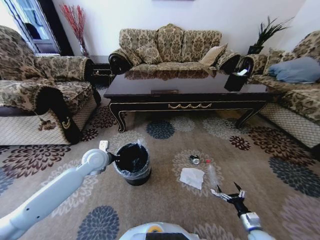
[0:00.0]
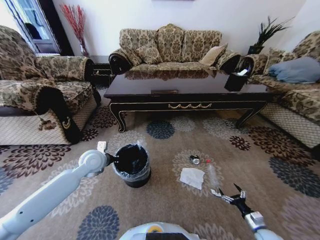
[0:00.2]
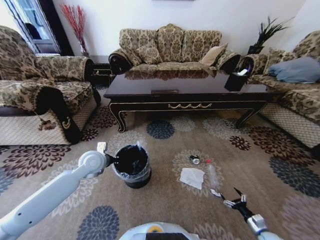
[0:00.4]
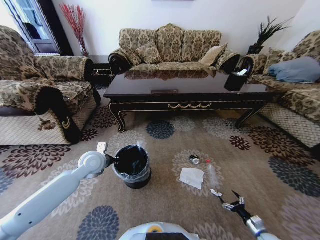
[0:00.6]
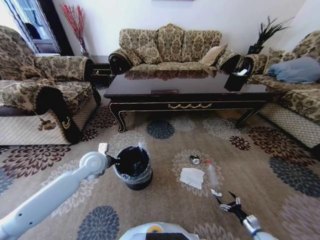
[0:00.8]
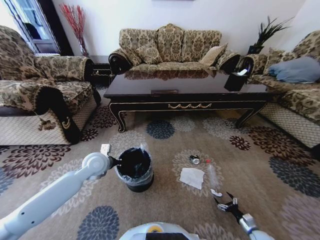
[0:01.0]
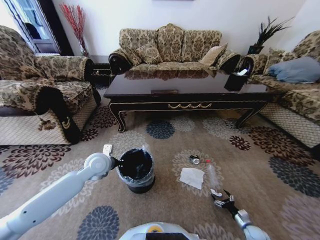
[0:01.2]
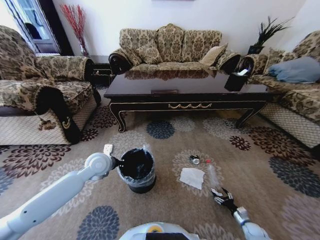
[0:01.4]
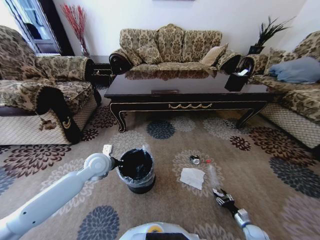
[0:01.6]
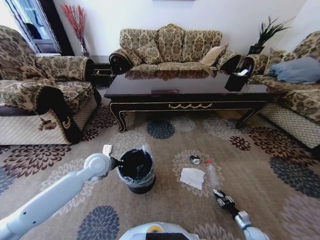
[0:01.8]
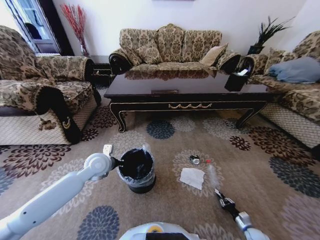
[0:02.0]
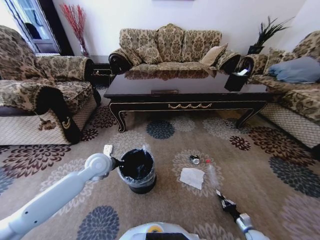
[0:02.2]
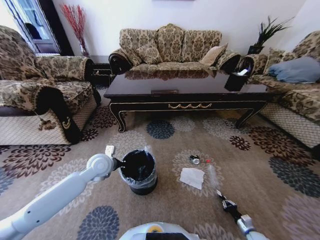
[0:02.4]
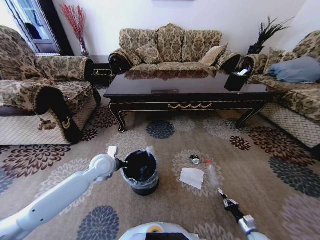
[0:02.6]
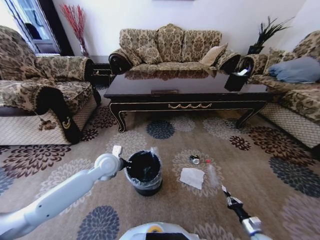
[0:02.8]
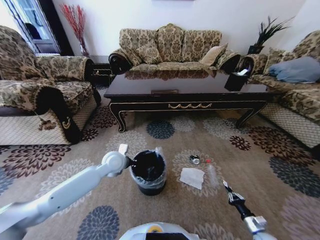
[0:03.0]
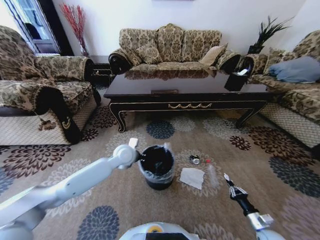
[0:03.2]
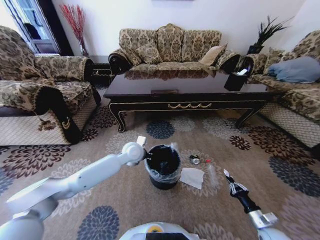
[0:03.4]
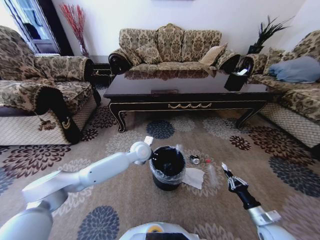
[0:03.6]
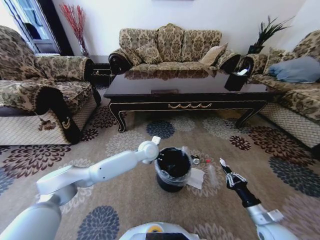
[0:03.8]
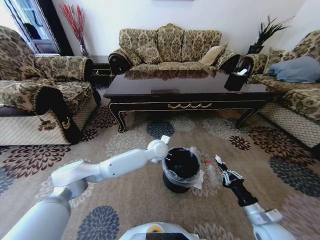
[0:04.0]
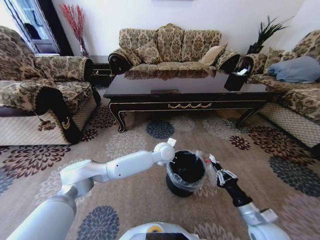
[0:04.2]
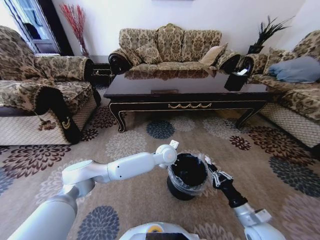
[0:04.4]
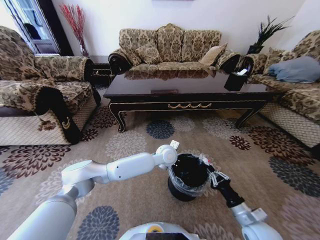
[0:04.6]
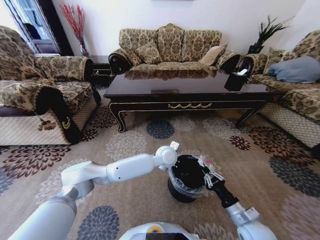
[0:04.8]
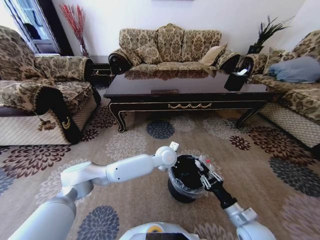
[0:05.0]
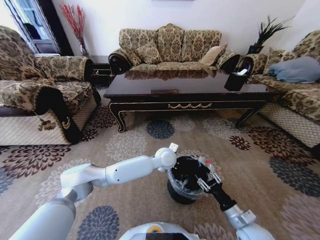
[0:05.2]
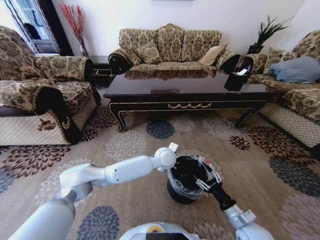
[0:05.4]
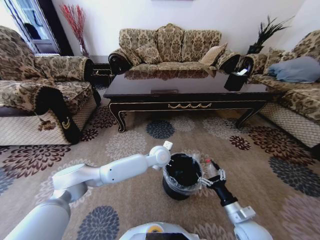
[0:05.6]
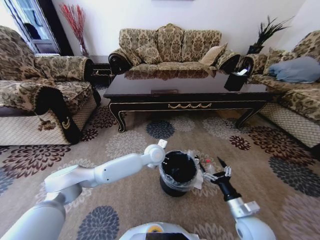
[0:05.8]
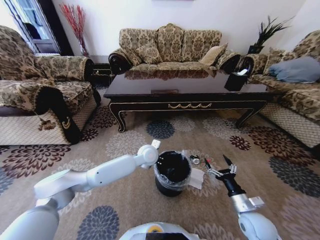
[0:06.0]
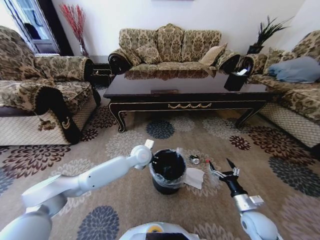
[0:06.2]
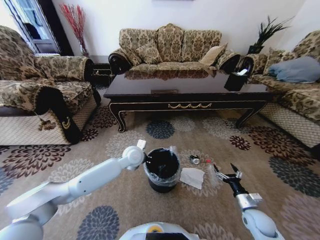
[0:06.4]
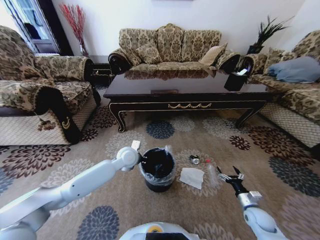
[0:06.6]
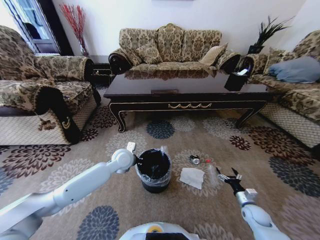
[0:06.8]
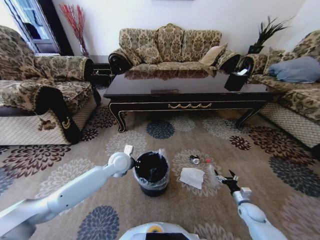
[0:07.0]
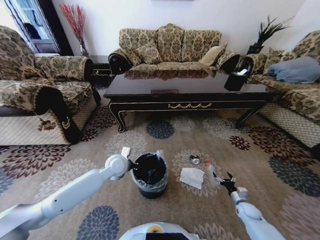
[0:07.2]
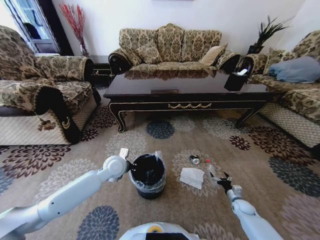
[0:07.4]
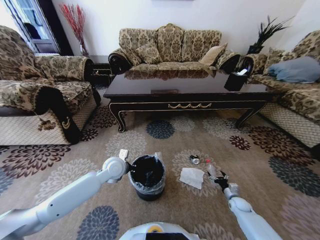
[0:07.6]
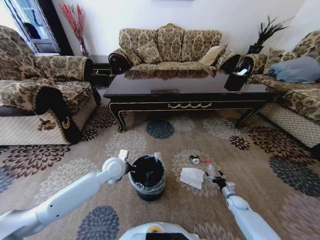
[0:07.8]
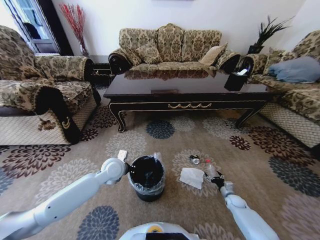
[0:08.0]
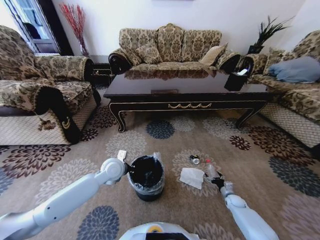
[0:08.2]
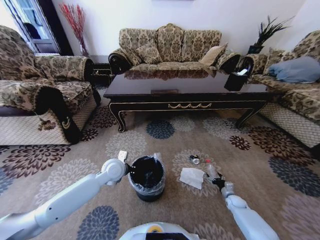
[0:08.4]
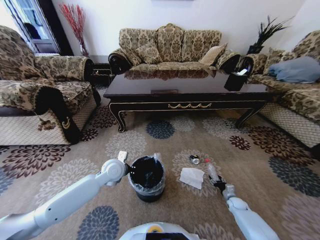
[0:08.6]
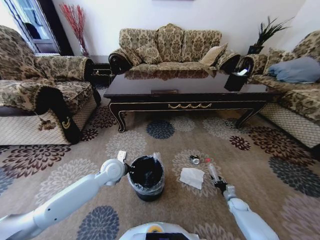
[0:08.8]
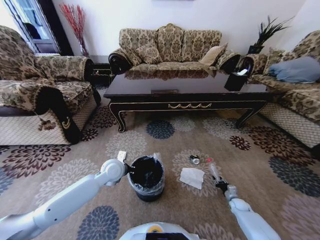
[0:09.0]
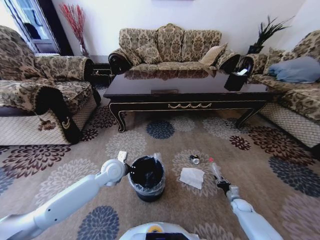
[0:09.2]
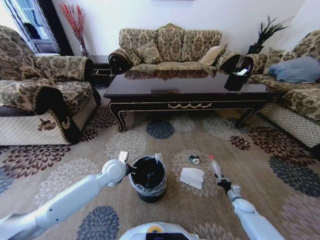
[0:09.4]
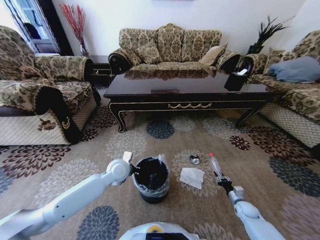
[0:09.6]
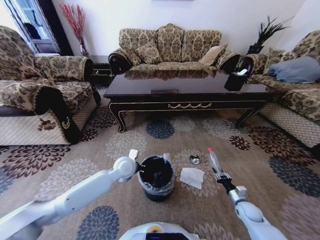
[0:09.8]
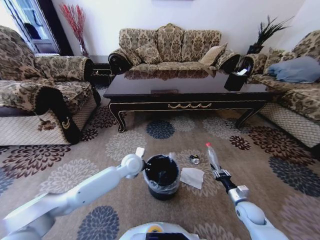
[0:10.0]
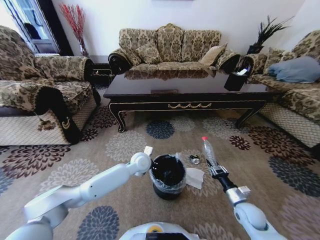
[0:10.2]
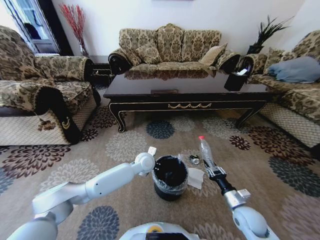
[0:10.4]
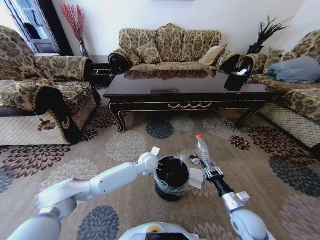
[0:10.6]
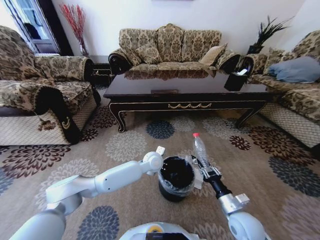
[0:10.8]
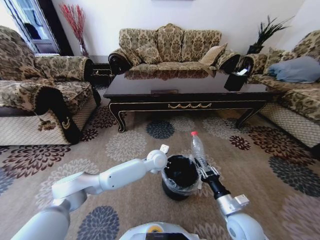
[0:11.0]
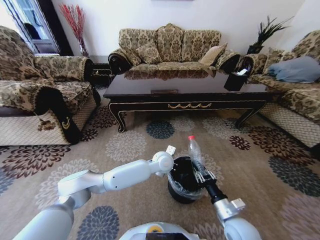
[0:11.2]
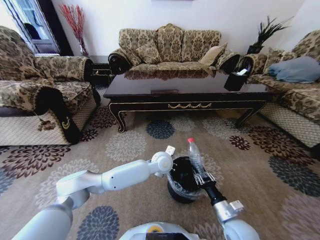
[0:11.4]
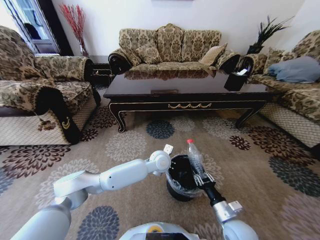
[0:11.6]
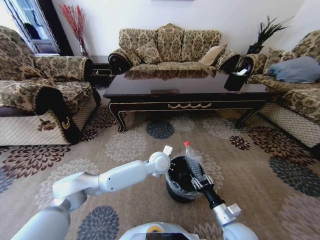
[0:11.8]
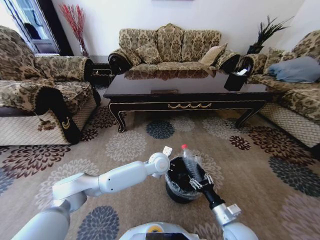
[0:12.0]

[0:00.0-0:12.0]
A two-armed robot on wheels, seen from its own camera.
Task of the whole recording: Move to the front of the table and pick up the trash from the floor, then place it into the trash bin.
0:00.0 to 0:01.6: The right gripper travels downward and to the right by some 15 cm, and closes.
0:01.6 to 0:03.0: The right gripper heads upward, covering about 10 cm, and closes up. The left gripper travels to the right by about 5 cm.
0:03.0 to 0:04.4: The right gripper shifts roughly 25 cm upward and to the left; the left gripper heads to the right, covering some 25 cm.
0:04.4 to 0:06.0: The right gripper opens up. The left gripper is displaced to the left by approximately 10 cm.
0:06.0 to 0:07.6: The left gripper goes some 15 cm to the left; the right gripper is displaced downward, to the right and forward by about 25 cm.
0:07.6 to 0:09.0: The right gripper closes.
0:09.0 to 0:10.4: The left gripper is displaced to the right by some 15 cm. The right gripper heads upward, to the left and backward, covering about 25 cm.
0:10.4 to 0:12.0: The right gripper shifts roughly 10 cm to the left and backward, while the left gripper heads to the right, covering approximately 5 cm.

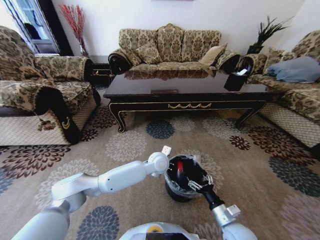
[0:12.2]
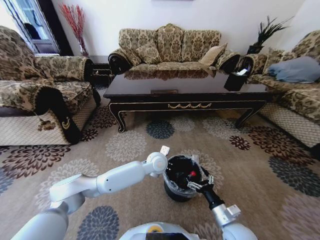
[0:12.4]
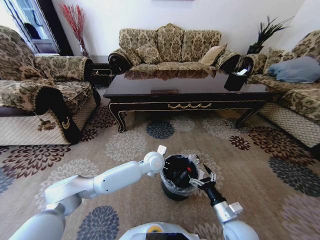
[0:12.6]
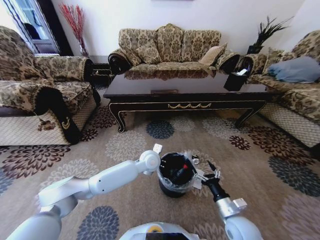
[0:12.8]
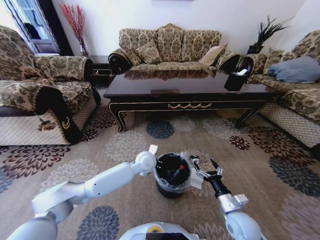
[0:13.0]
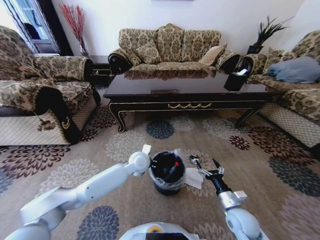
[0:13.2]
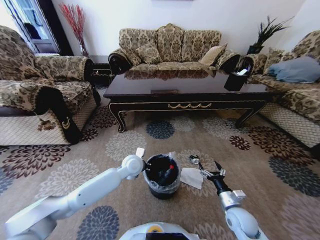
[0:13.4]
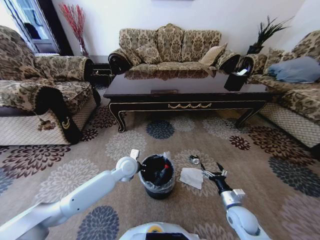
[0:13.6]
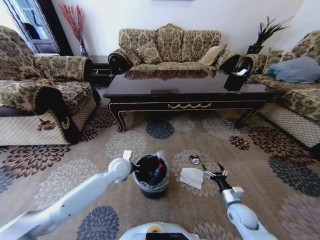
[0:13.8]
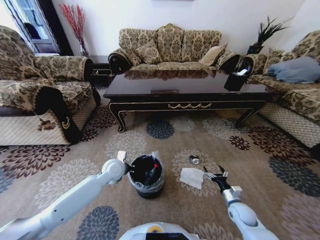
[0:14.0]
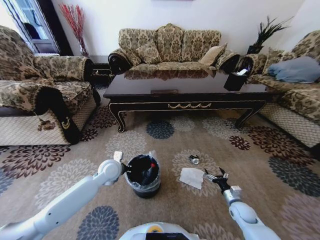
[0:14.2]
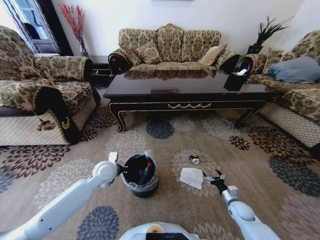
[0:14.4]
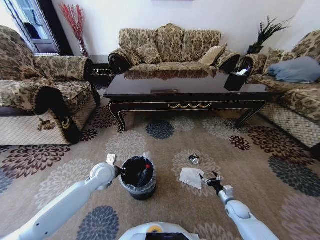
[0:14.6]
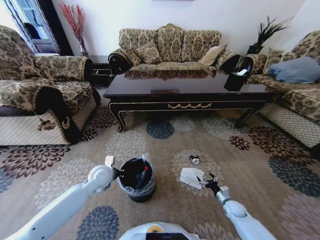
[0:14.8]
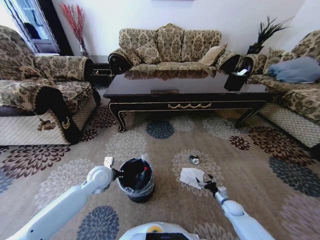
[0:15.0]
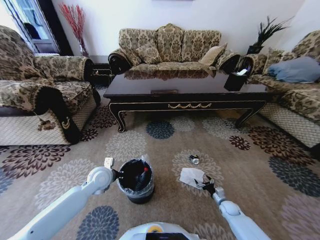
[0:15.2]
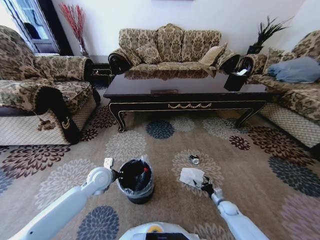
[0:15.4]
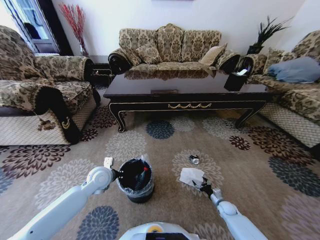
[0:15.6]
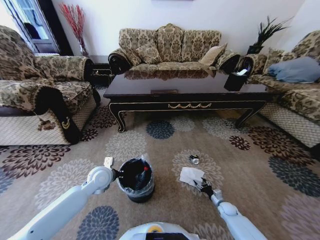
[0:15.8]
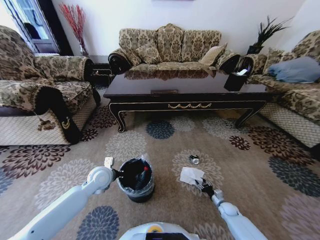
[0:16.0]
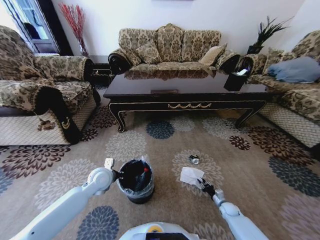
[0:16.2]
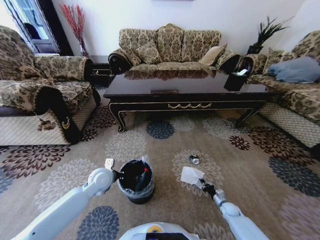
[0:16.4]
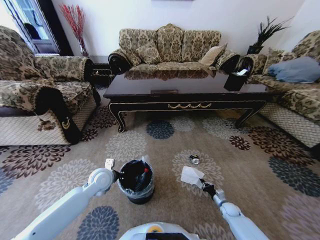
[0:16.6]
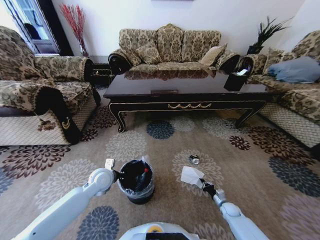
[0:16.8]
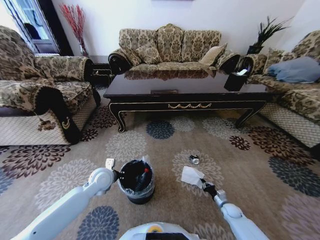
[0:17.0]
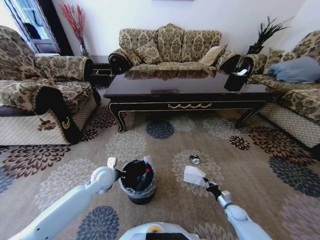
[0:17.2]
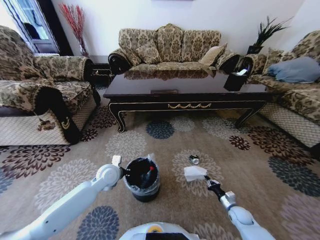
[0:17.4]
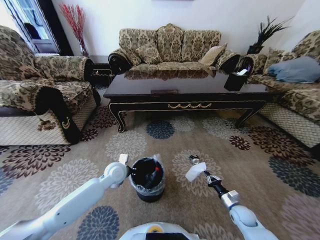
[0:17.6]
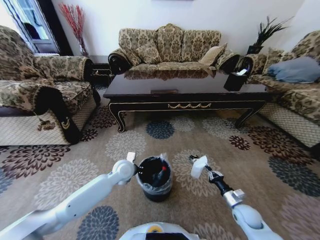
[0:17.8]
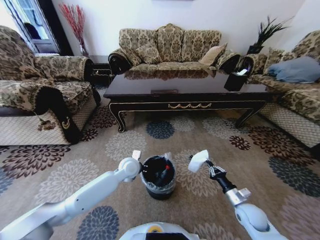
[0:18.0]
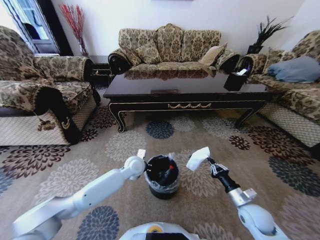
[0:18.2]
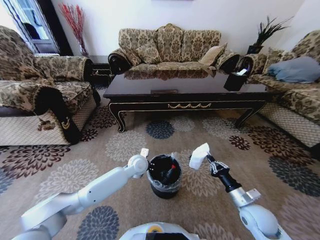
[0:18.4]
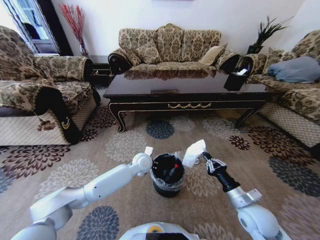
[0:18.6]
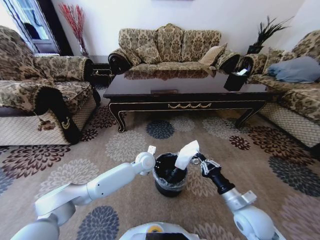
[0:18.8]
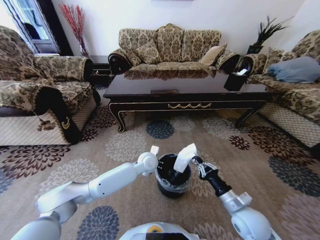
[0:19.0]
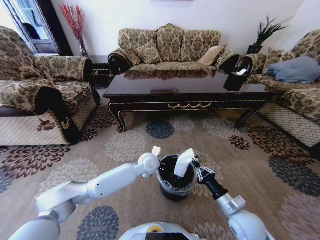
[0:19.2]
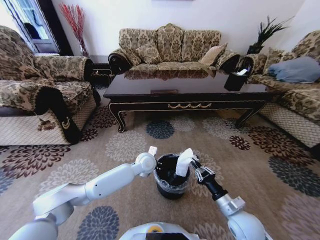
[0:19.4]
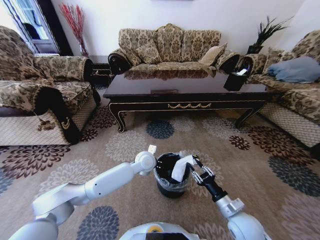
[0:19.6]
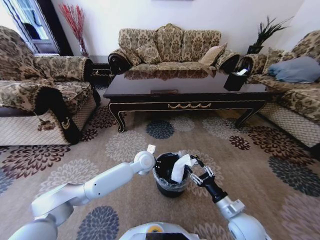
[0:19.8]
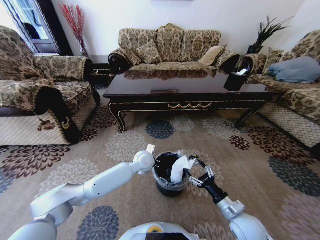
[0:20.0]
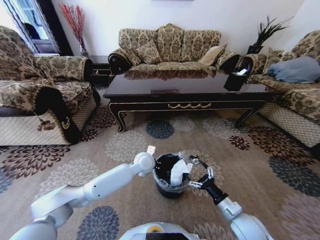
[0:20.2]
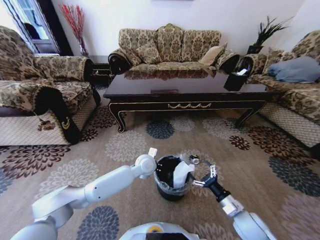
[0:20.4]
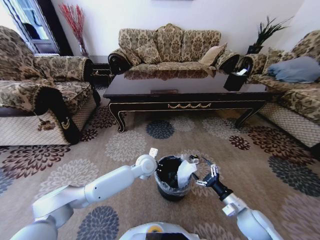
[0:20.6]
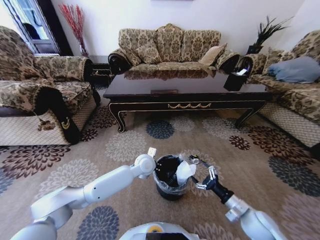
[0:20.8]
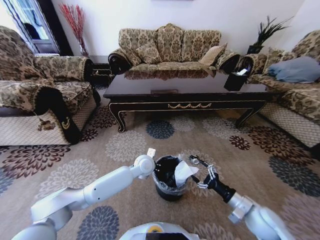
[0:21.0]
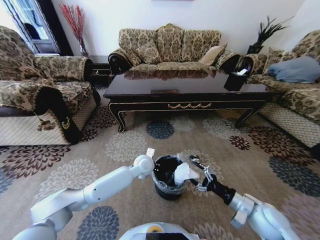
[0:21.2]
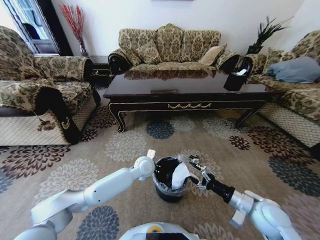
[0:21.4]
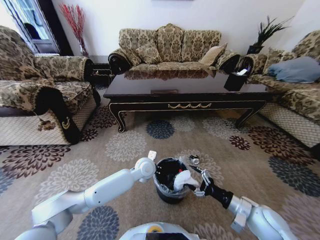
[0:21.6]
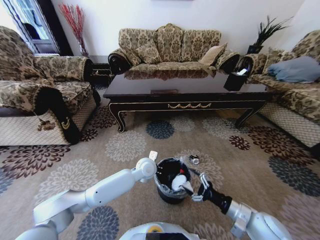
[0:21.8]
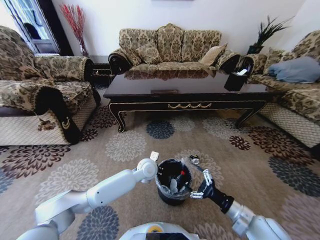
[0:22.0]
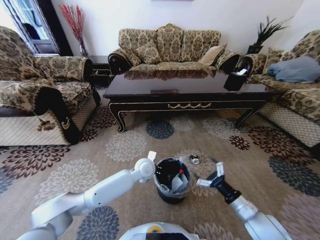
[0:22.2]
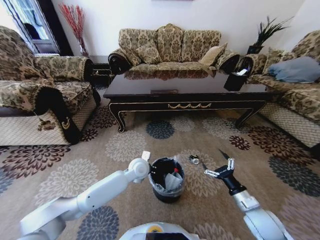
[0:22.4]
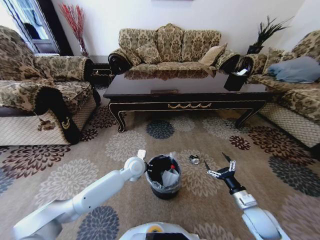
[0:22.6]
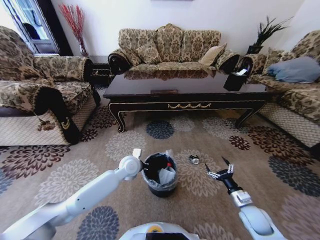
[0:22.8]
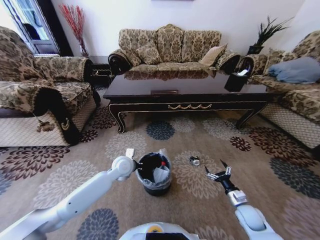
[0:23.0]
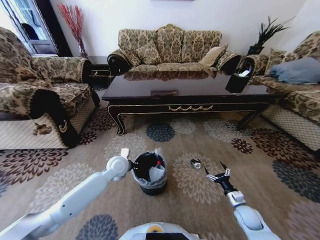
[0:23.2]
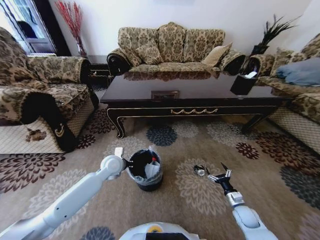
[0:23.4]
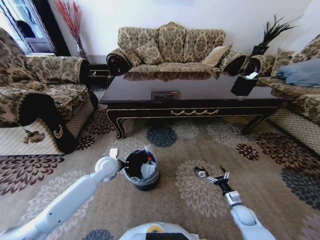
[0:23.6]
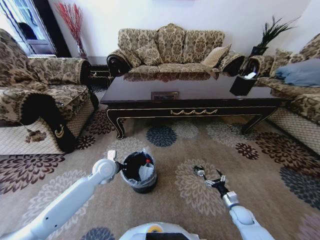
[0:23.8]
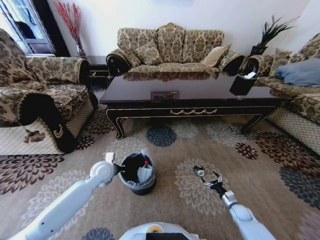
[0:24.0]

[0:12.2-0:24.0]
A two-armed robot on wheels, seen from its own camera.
Task of the whole recording: Move to the front of the table and pick up the trash from the floor, then place it into the trash bin.
0:12.2 to 0:13.6: The right gripper travels to the right and forward by approximately 10 cm. Meanwhile the left gripper goes about 15 cm to the left.
0:13.6 to 0:15.2: The left gripper heads to the left, covering some 10 cm, while the right gripper is displaced downward and to the right by about 20 cm.
0:15.2 to 0:16.6: The right gripper closes up.
0:16.6 to 0:18.2: The right gripper goes about 20 cm upward, while the left gripper heads to the right and forward, covering some 15 cm.
0:18.2 to 0:19.6: The right gripper is displaced to the left by roughly 10 cm. Meanwhile the left gripper changes place by some 5 cm.
0:19.6 to 0:21.0: The right gripper is displaced to the right by some 5 cm, and opens.
0:22.6 to 0:24.0: The left gripper shifts approximately 15 cm to the left. Meanwhile the right gripper goes some 20 cm downward and to the right.
